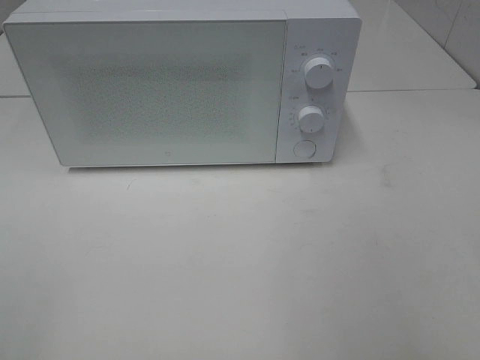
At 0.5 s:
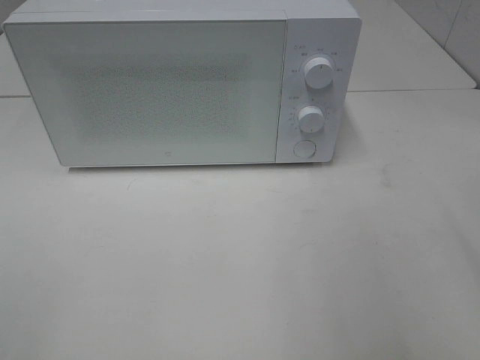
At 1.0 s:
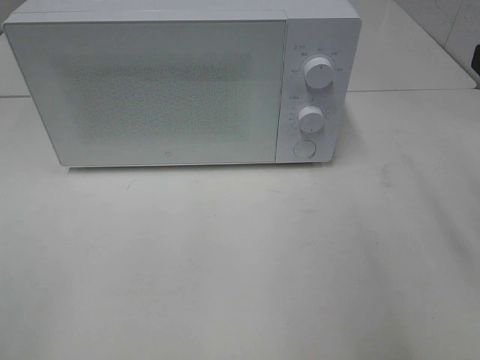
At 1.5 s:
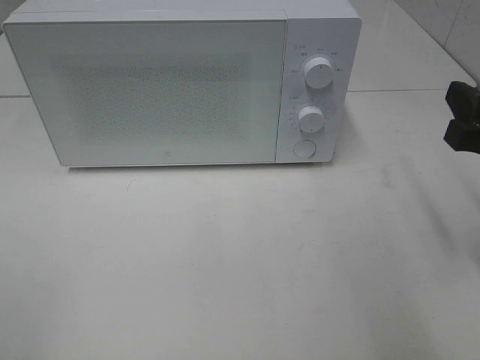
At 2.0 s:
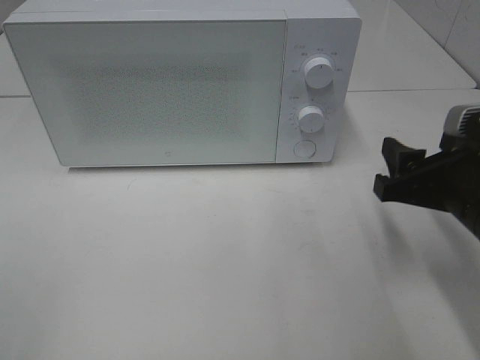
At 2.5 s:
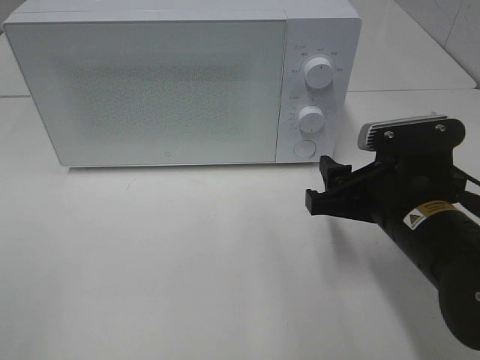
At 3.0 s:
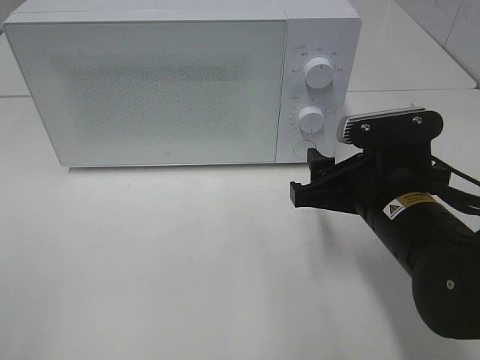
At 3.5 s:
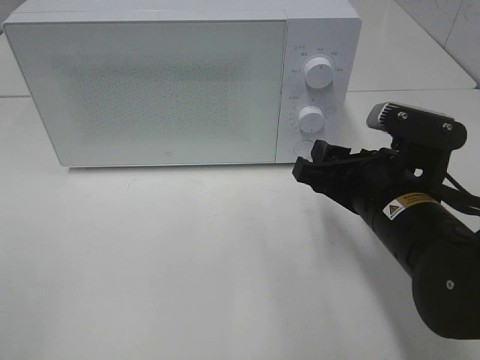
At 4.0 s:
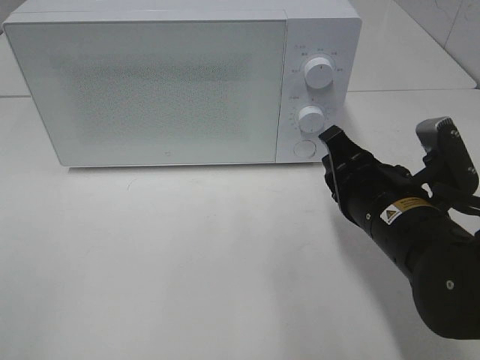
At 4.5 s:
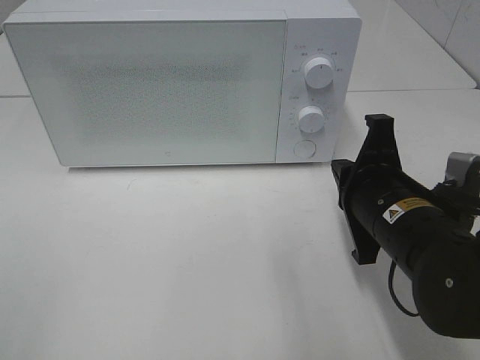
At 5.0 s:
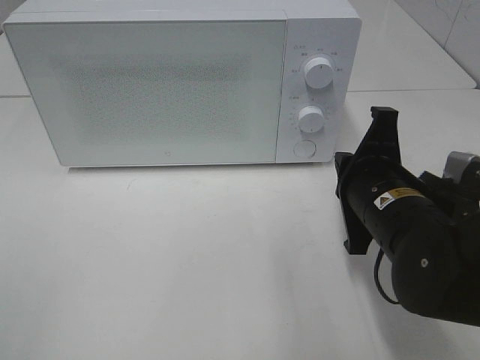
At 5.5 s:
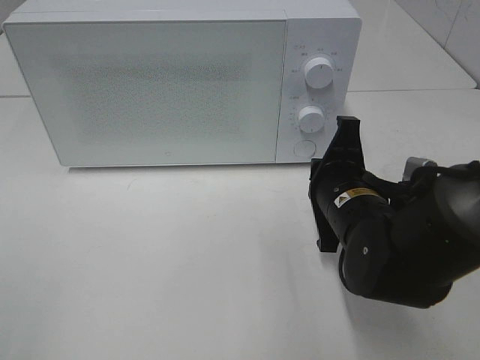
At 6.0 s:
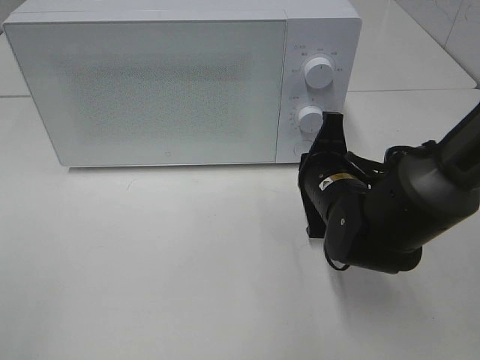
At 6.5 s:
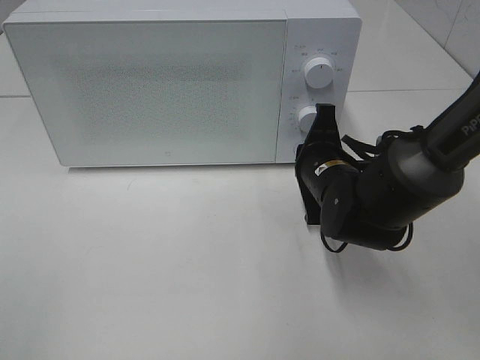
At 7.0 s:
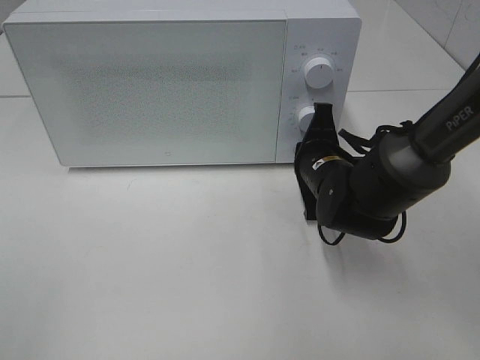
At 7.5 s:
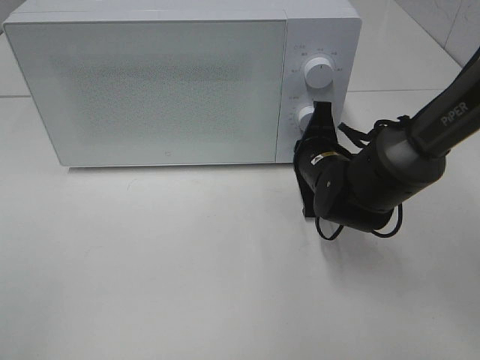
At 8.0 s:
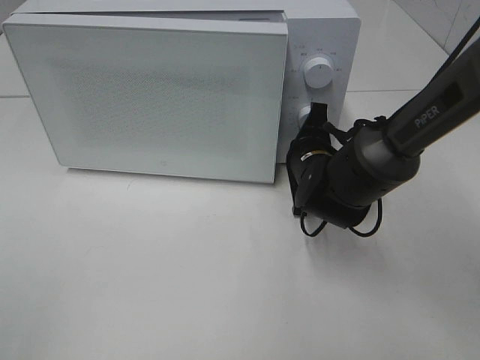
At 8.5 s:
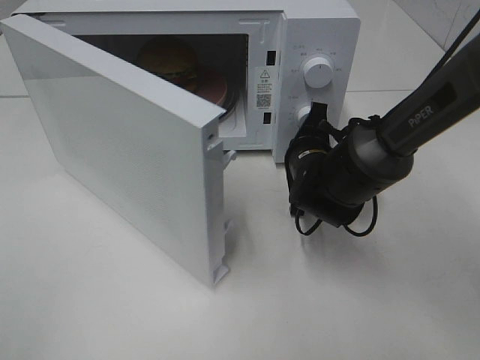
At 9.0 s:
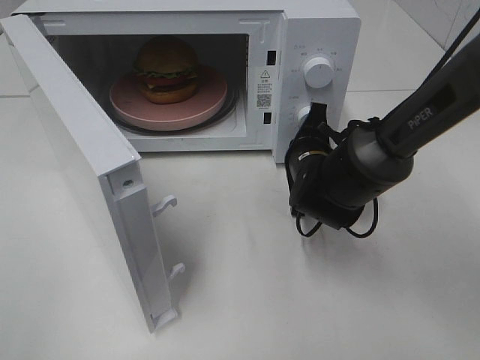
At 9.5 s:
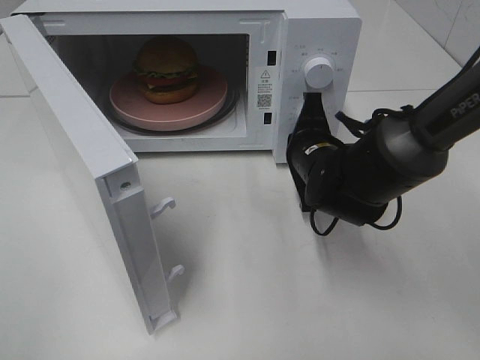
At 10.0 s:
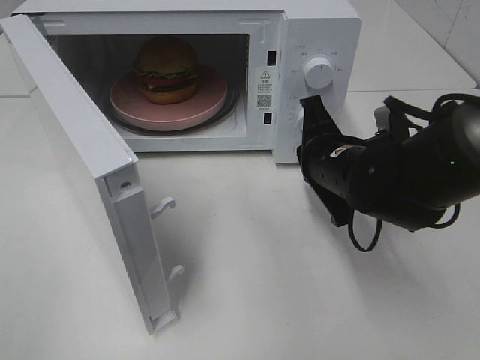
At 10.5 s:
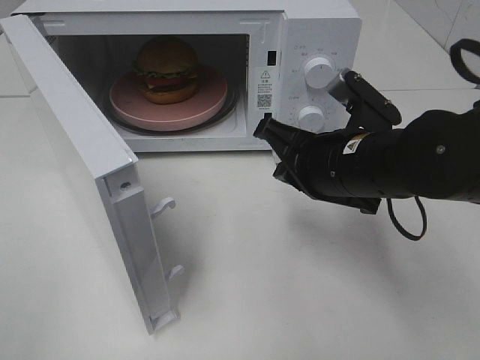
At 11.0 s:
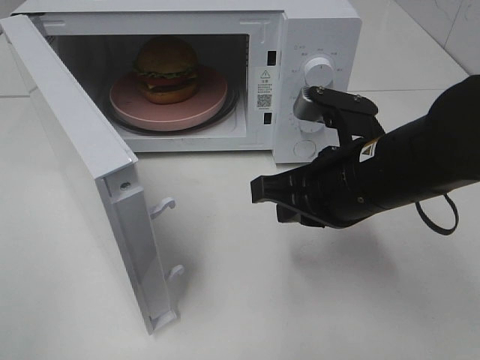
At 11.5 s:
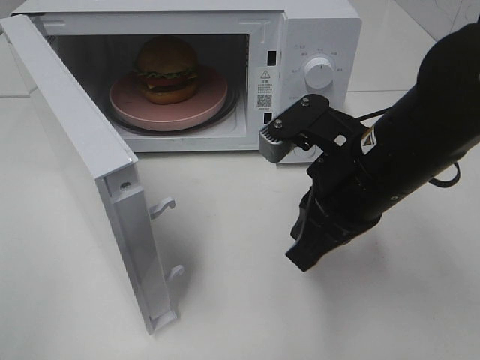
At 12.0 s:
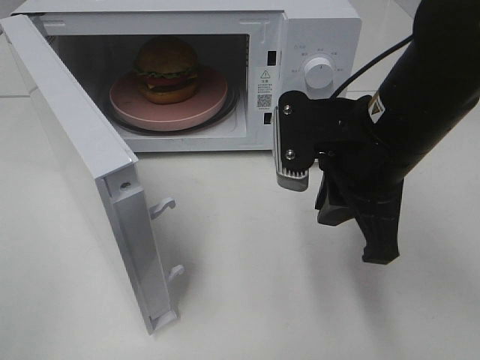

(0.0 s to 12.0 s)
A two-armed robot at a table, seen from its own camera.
Task of the whole recording: Heat the burger.
Step, 0.0 s - 9.5 s: Right hand: press the switch.
0.0 s - 2.0 s: The right gripper is displaced downward and forward by approximately 20 cm.
2.0 s - 4.0 s: The right gripper is displaced to the left by some 10 cm, and closes up.
4.0 s - 6.0 s: The right gripper is displaced forward by roughly 10 cm.
6.0 s - 8.0 s: The right gripper is displaced forward by some 5 cm.
8.0 s - 10.0 s: The right gripper is displaced backward and upward by roughly 10 cm.
10.0 s - 12.0 s: The right gripper is displaced upward and backward by about 10 cm.

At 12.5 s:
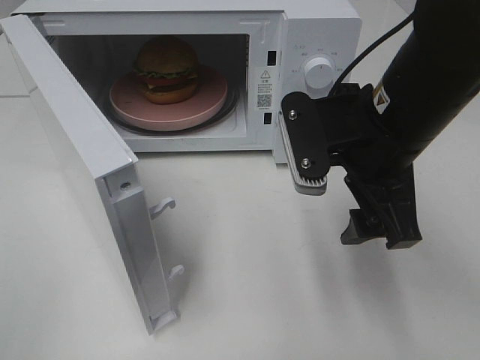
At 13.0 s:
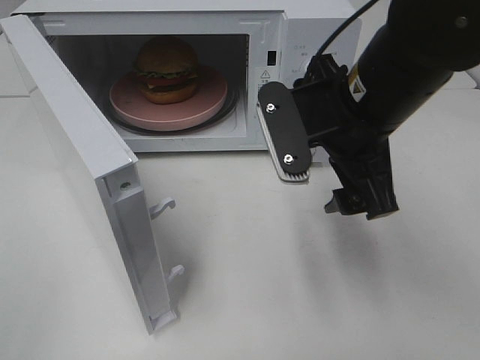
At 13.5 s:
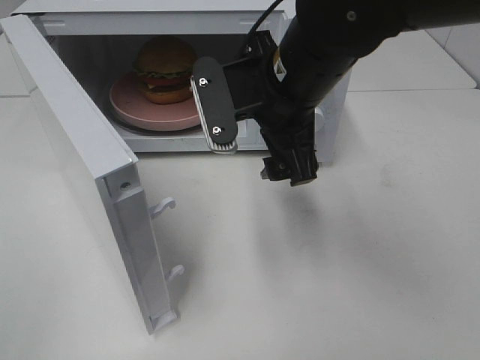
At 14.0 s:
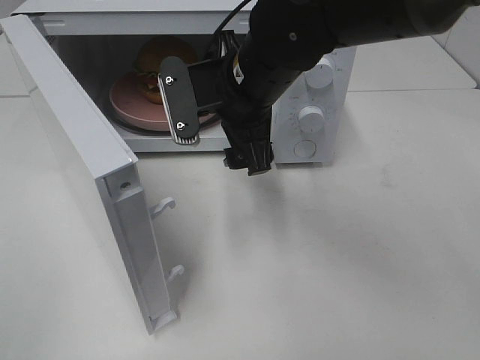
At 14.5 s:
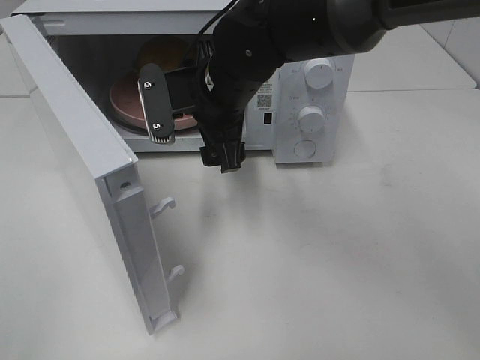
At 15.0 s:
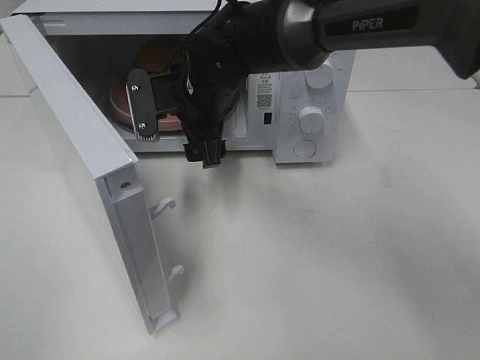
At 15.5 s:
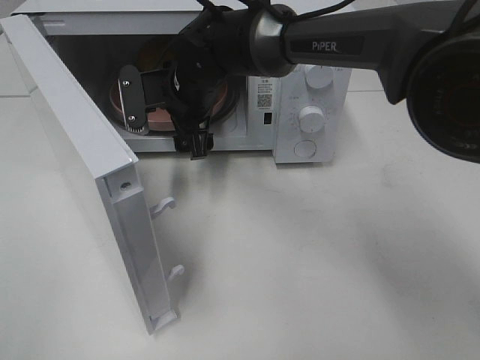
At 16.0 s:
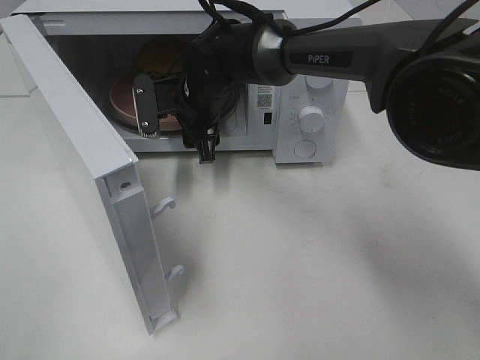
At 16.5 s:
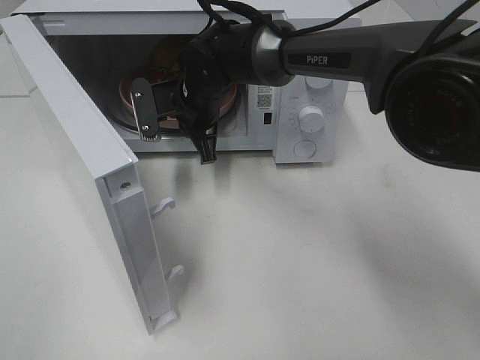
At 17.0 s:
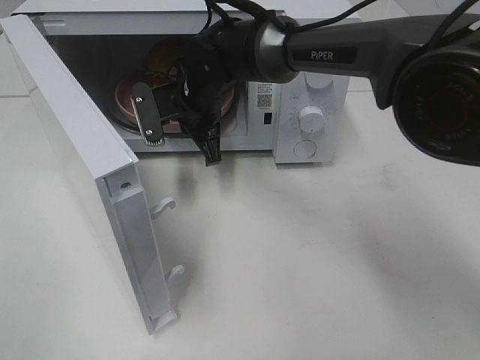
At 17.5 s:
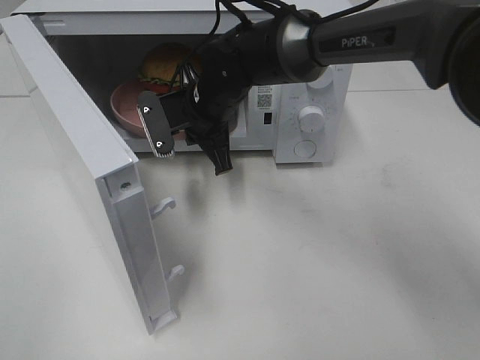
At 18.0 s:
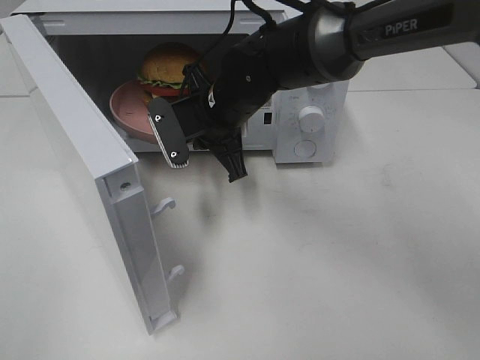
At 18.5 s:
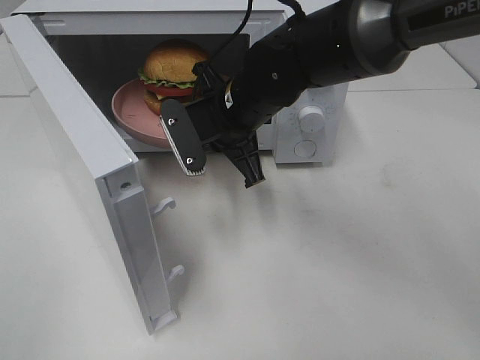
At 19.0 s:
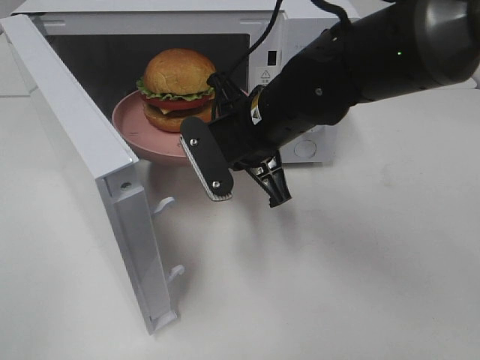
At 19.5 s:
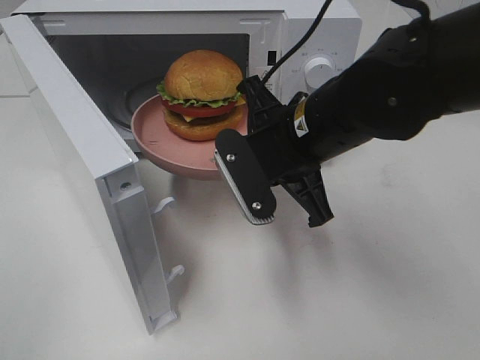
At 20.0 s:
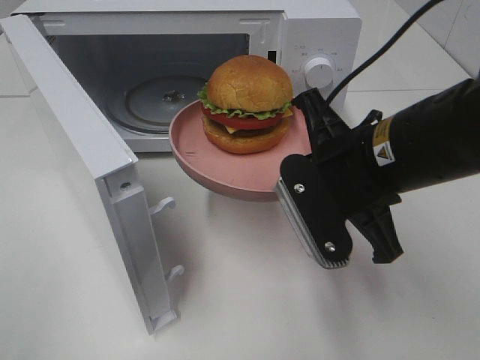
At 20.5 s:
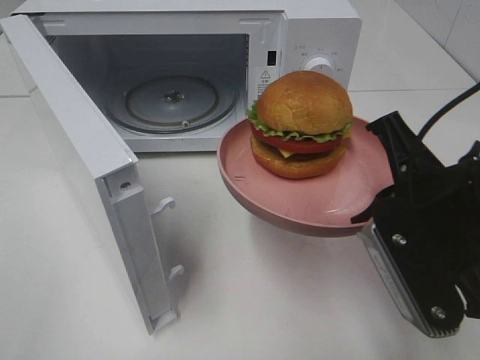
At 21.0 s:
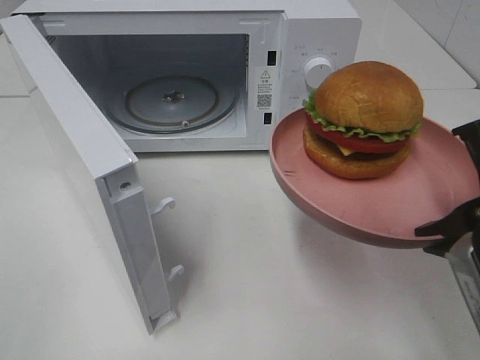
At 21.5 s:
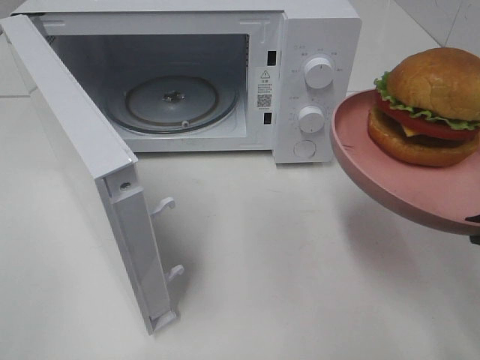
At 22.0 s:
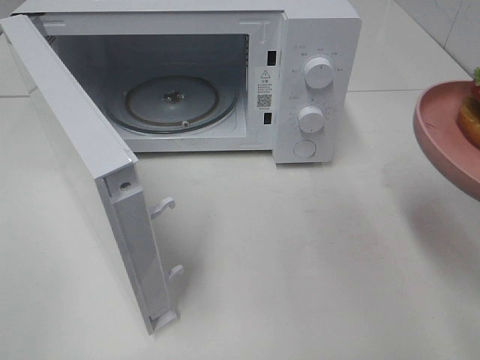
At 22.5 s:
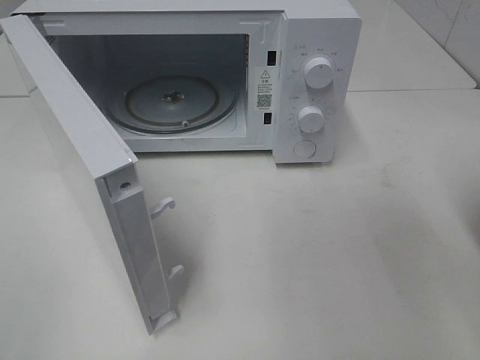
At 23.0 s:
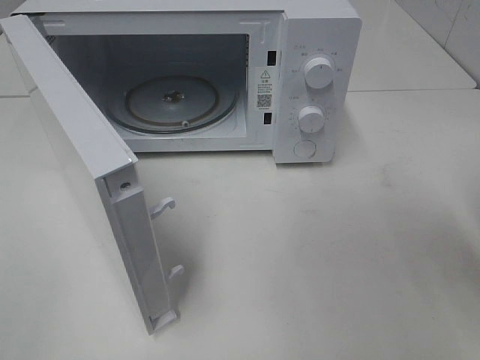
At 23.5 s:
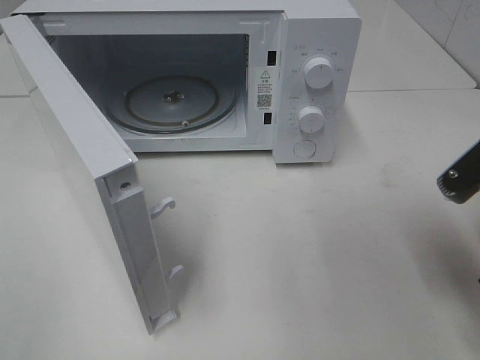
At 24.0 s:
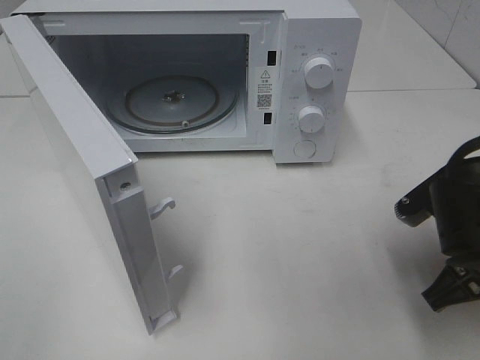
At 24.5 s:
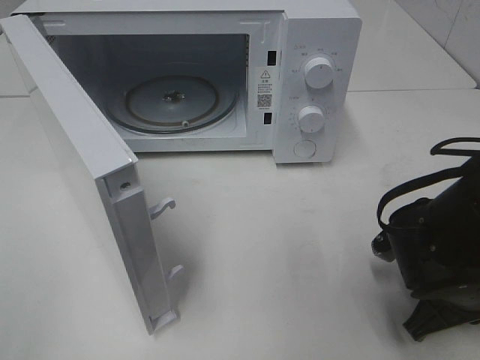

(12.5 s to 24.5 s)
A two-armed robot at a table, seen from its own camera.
Task of the whole recording: Heat the burger.
Step, 12.5 s - 16.5 s: Right hand: grab the plate with the hamburger.
12.5 s - 14.5 s: The right gripper moves to the left and forward, about 15 cm.
14.5 s - 16.5 s: The right gripper shifts some 10 cm forward and downward, and closes up.
16.5 s - 18.5 s: The right gripper heads backward and to the right, covering approximately 10 cm.
18.5 s - 20.5 s: The right gripper moves backward and to the right, roughly 25 cm.
20.5 s - 22.5 s: The right gripper shifts approximately 10 cm to the right.
22.5 s - 24.5 s: The right gripper goes about 20 cm downward and forward.

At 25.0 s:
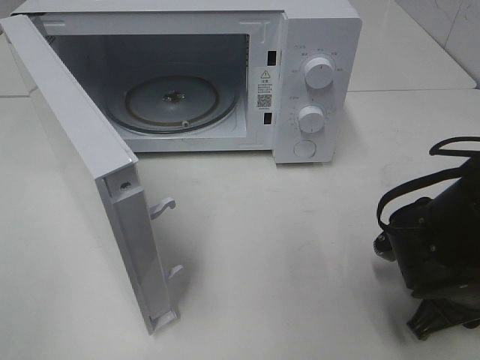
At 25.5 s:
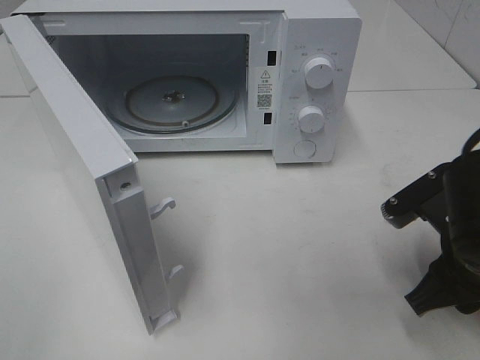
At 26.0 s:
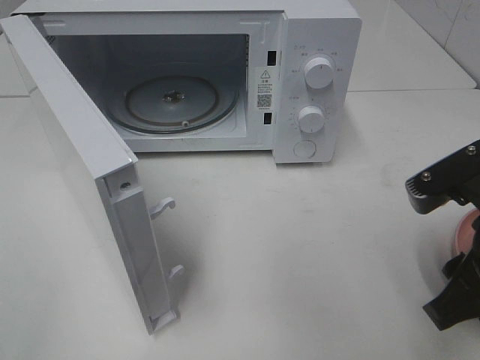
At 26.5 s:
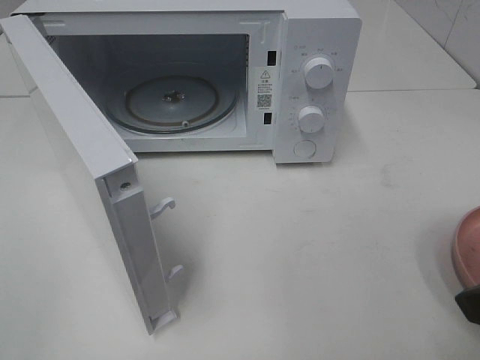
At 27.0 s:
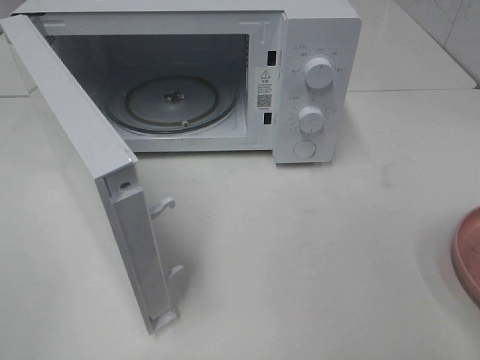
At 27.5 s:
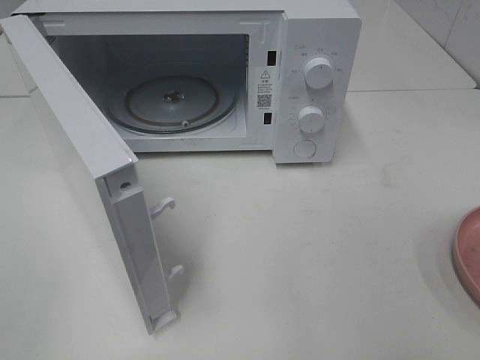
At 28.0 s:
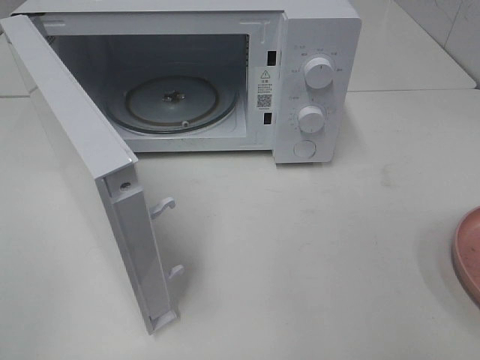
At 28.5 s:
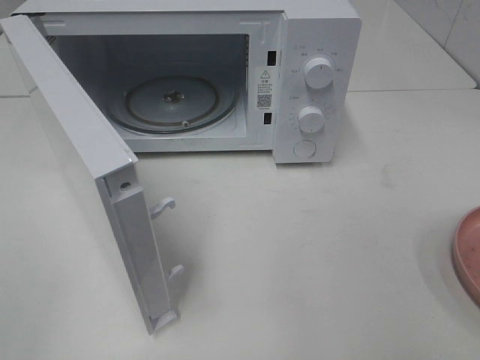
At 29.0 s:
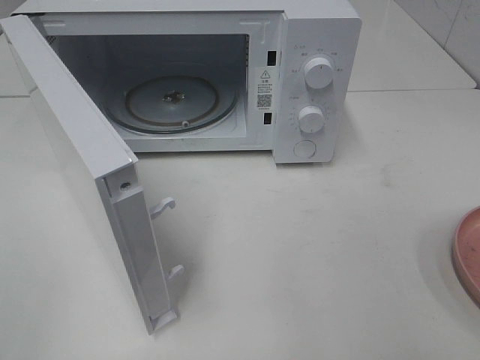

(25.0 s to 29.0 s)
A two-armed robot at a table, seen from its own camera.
Task of the whole recording: Heat the burger.
25.0 s - 27.0 s: The right gripper goes some 25 cm upward and backward, and opens its fingers.
